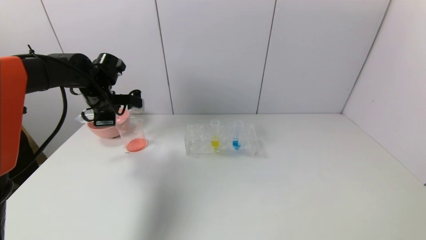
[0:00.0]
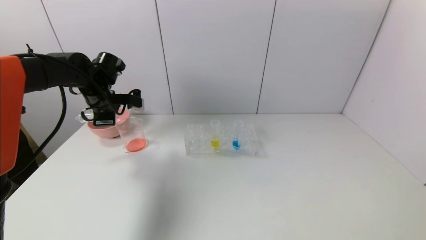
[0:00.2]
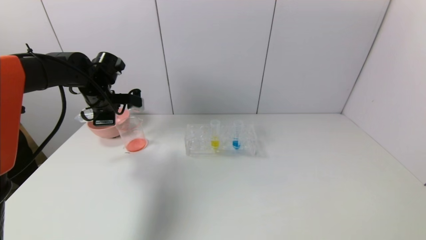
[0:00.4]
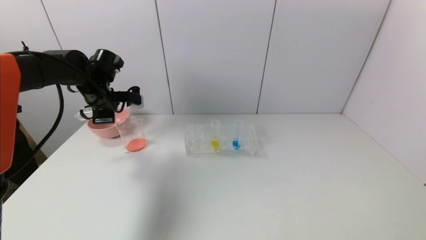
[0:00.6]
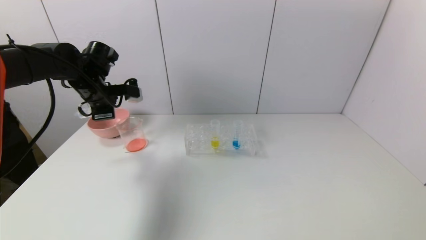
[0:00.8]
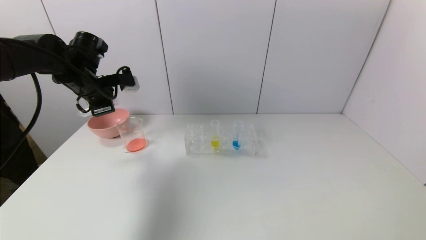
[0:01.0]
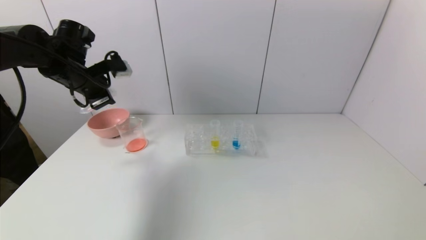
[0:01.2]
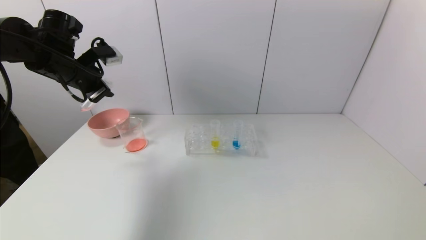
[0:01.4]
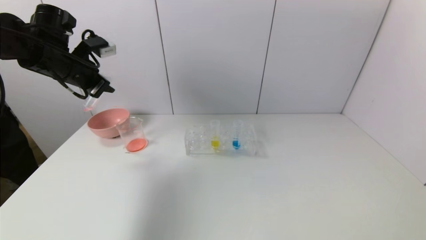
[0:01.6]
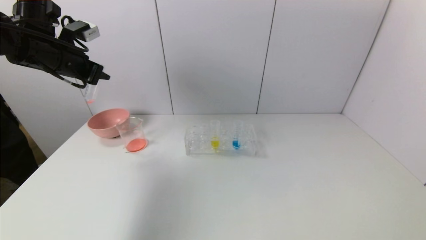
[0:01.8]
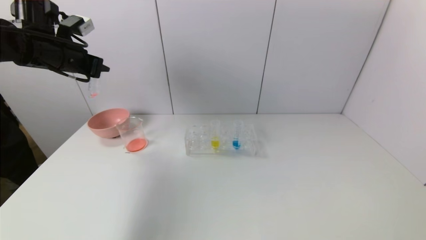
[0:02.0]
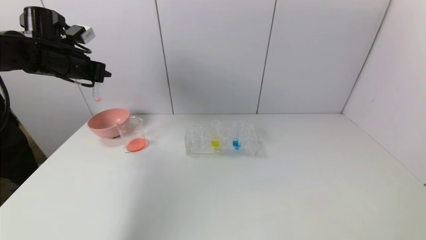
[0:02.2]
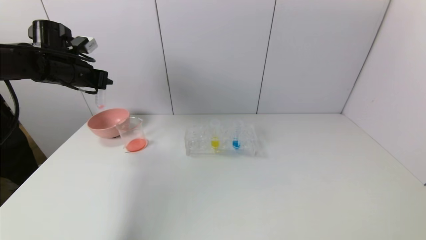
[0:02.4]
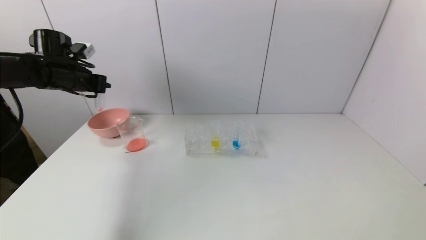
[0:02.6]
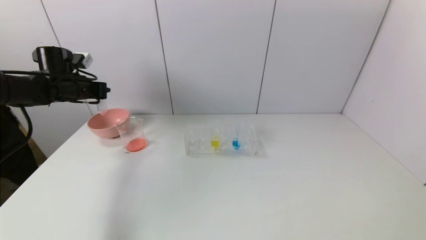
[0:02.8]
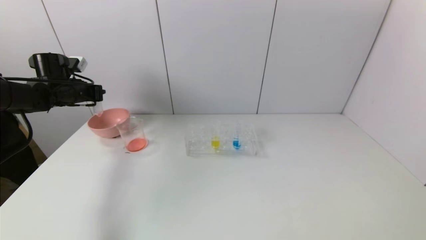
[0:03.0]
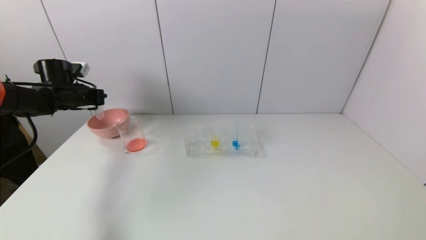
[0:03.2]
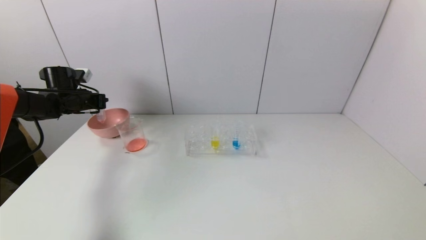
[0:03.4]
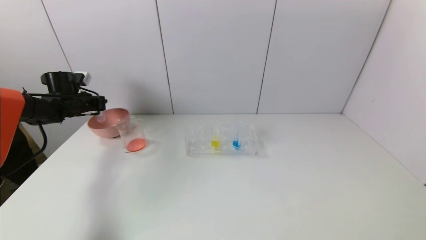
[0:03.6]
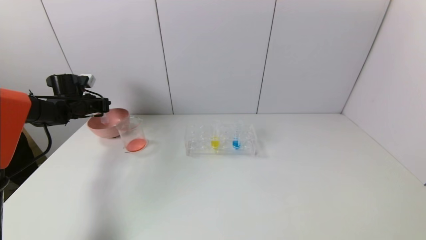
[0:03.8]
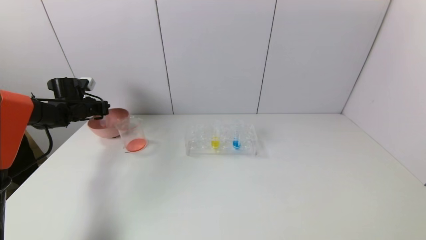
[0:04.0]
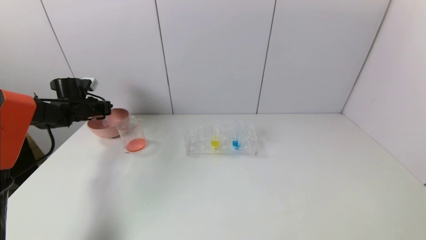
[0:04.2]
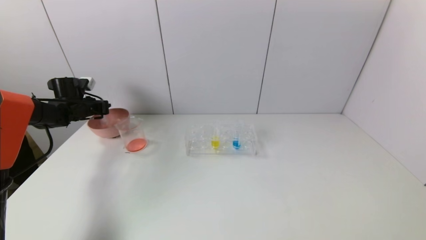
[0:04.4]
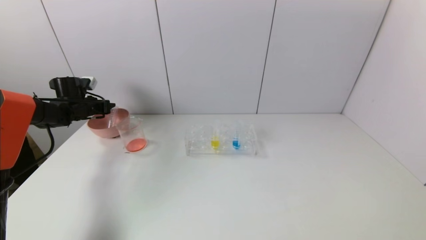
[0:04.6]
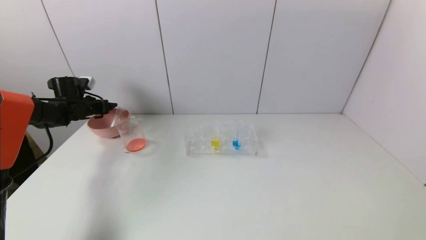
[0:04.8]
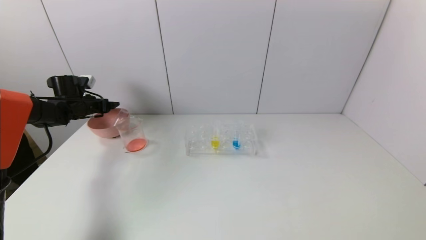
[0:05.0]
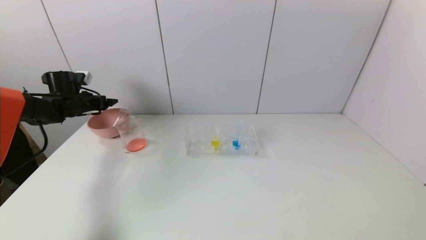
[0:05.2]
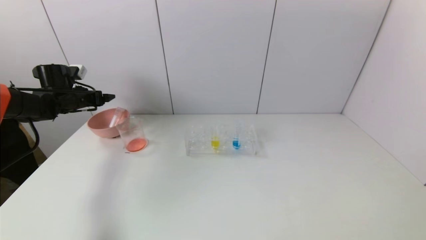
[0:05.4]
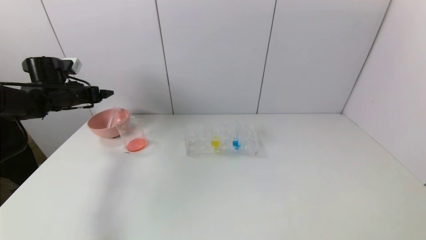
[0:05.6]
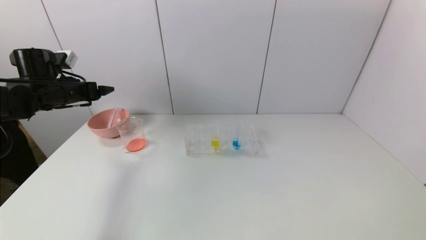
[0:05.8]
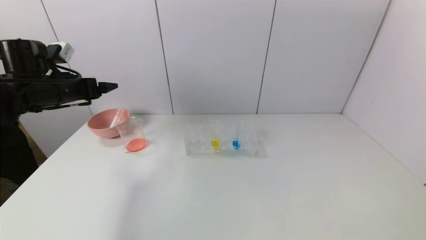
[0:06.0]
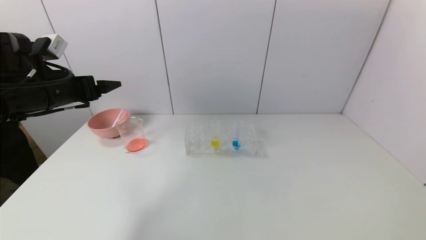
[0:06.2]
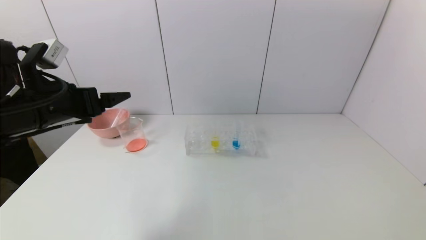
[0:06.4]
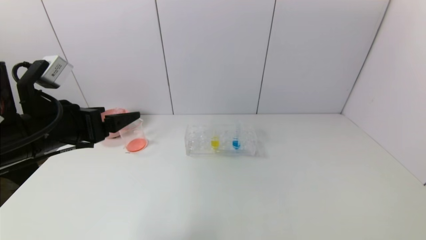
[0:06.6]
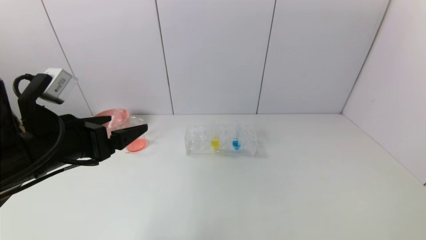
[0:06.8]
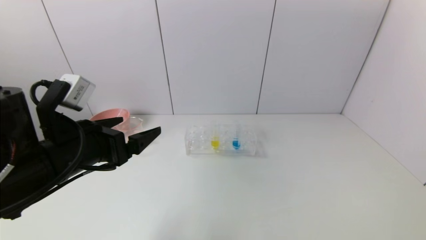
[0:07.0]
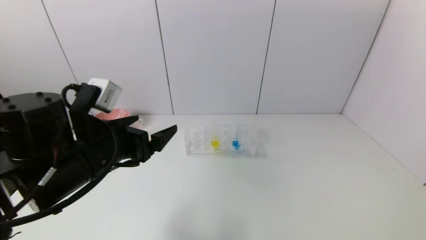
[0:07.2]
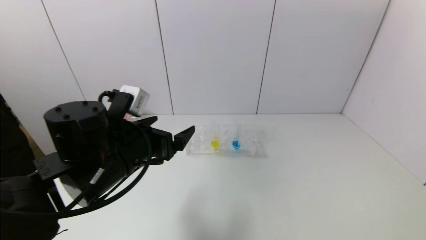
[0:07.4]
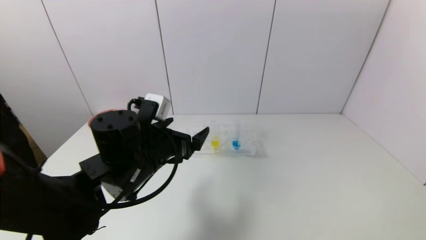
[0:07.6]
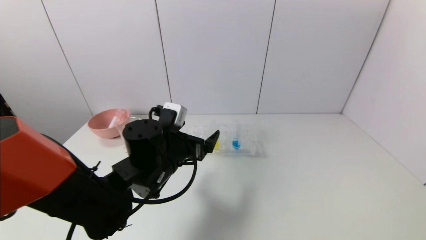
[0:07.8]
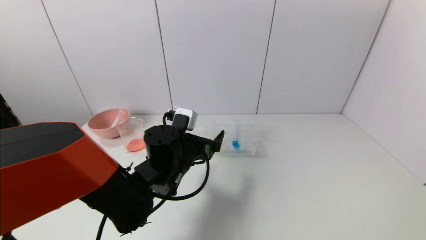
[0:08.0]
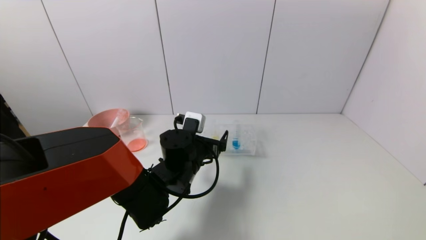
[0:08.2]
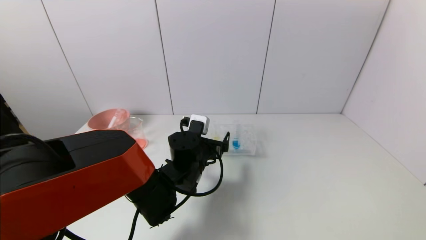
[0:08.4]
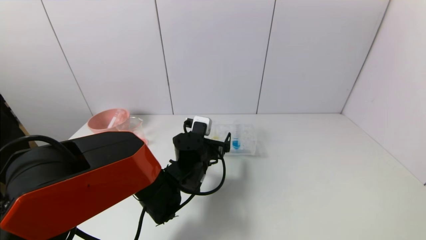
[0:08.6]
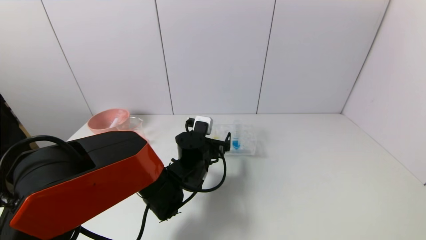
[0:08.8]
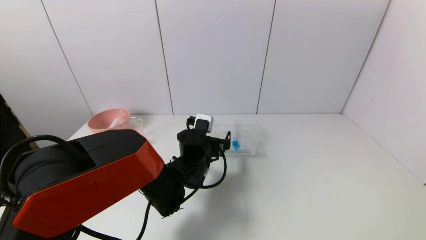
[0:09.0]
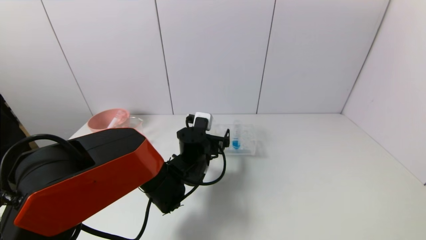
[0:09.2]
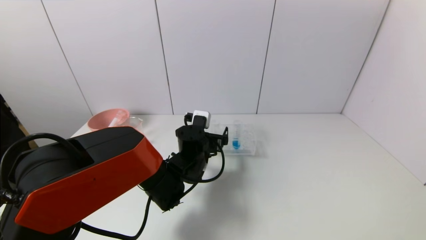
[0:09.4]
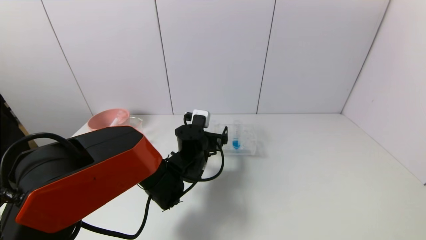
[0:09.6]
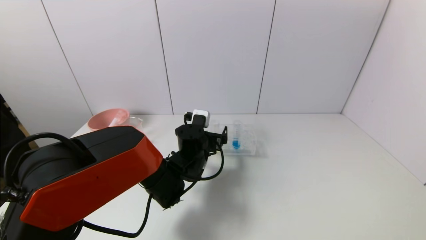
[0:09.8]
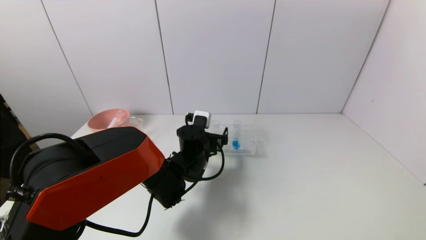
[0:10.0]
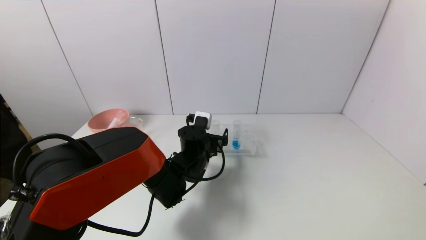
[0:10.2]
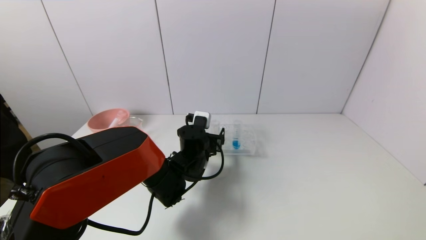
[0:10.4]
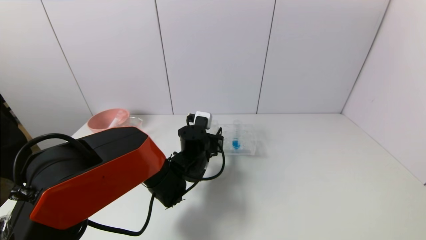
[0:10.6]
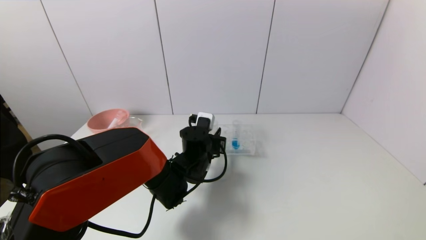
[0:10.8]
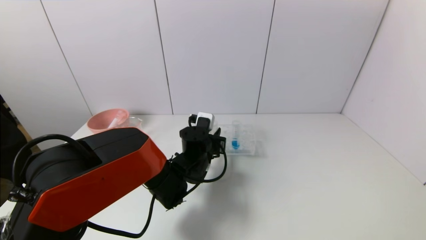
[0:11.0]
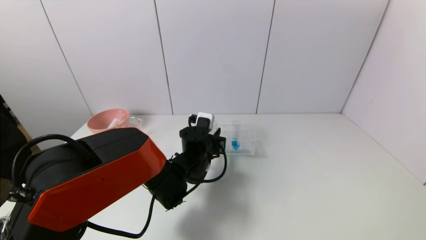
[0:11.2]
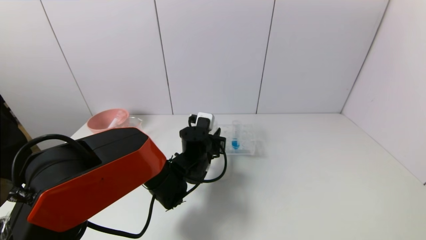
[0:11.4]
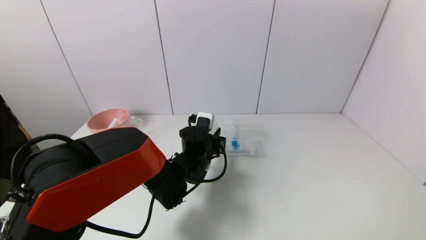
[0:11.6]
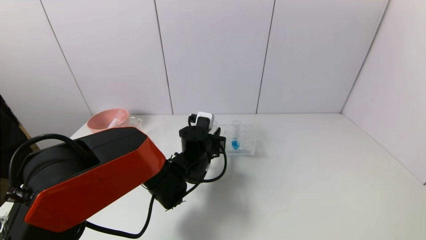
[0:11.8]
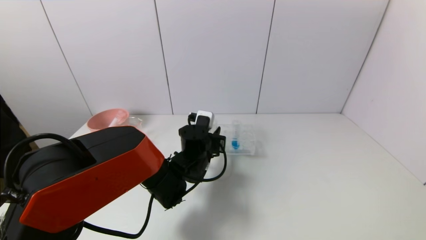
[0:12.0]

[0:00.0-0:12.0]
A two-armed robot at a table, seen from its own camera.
Task of the whole recording: pick up the test tube with yellow pigment and the test tube with red pigment by grippers and pour them into the beaker.
Step, 0:00.0 to 0:04.6: Place the test tube into the pink bowl with the left gripper.
Step, 0:04.8 to 0:11.2: Grasp the yellow reagent with the left gripper.
0:00.0 to 0:01.6: The left gripper moves upward, approximately 10 cm.
0:01.6 to 0:03.0: The left gripper is displaced downward, to the left and forward by about 15 cm.
0:03.0 to 0:04.4: The left gripper is displaced downward by about 5 cm.
0:04.4 to 0:06.0: The left gripper goes about 20 cm backward, upward and to the right, and opens its fingers.
0:06.0 to 0:07.6: The left gripper heads to the right and downward, covering roughly 25 cm.
0:07.6 to 0:09.0: The left gripper goes approximately 15 cm forward, to the right and downward.
0:09.0 to 0:10.4: There are only small adjustments of the grippers.
0:10.4 to 0:12.0: The left gripper closes its fingers.

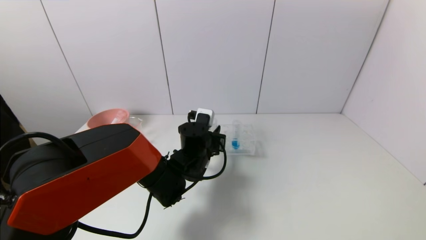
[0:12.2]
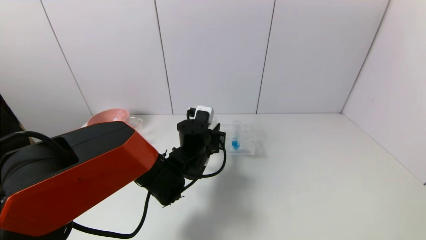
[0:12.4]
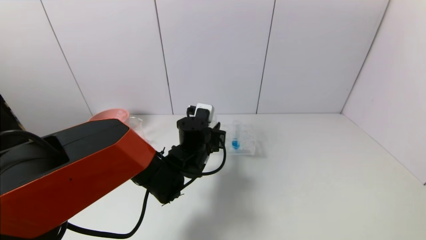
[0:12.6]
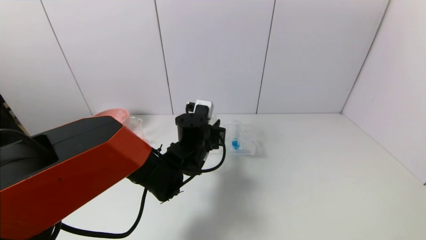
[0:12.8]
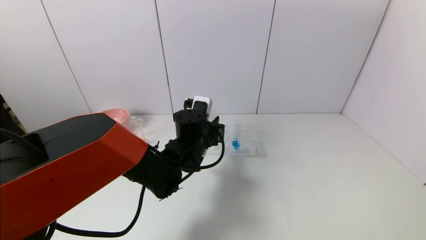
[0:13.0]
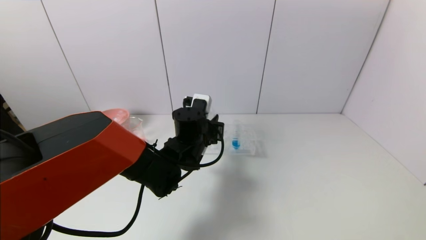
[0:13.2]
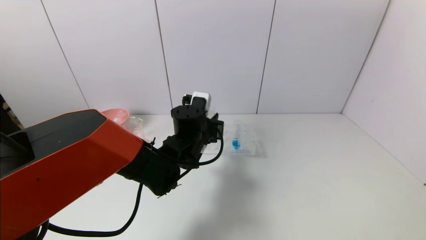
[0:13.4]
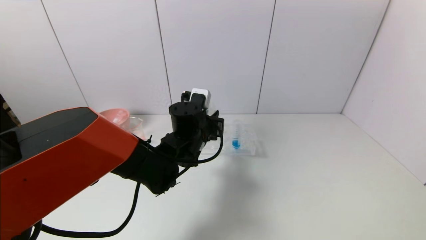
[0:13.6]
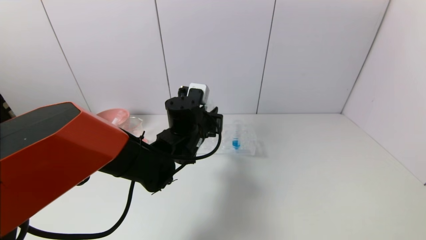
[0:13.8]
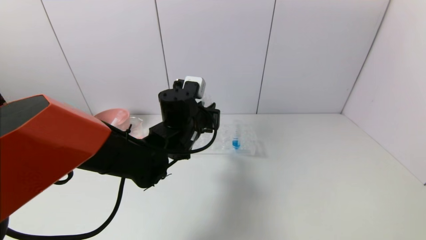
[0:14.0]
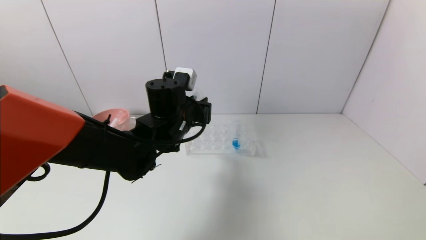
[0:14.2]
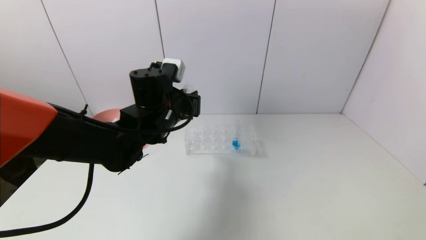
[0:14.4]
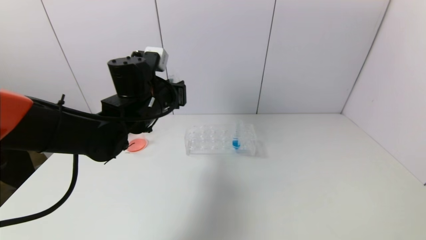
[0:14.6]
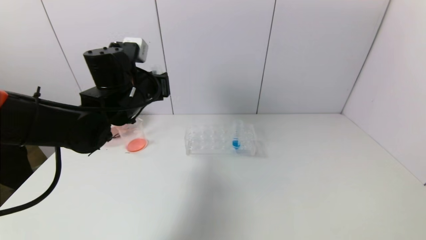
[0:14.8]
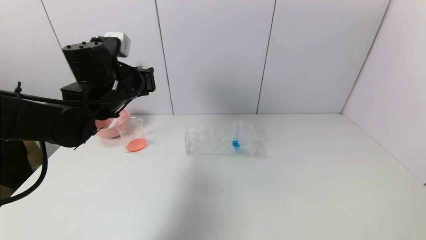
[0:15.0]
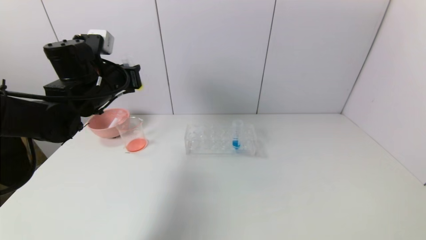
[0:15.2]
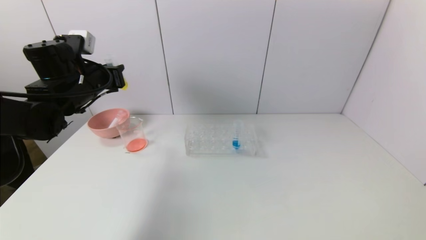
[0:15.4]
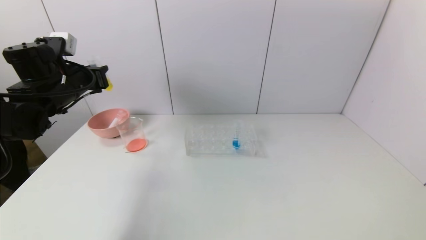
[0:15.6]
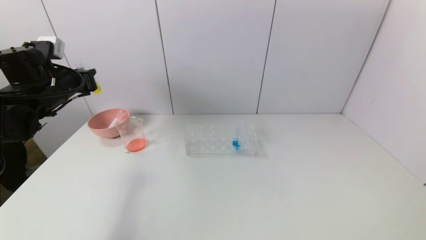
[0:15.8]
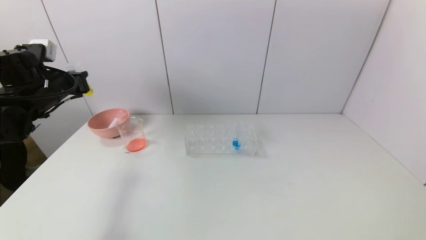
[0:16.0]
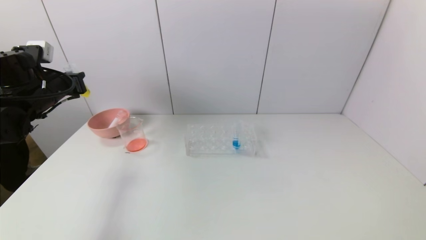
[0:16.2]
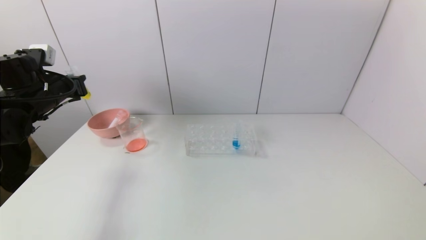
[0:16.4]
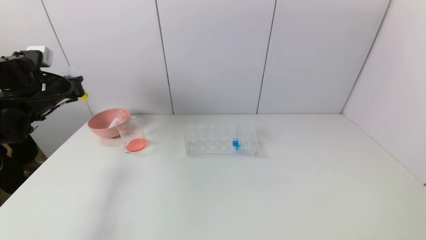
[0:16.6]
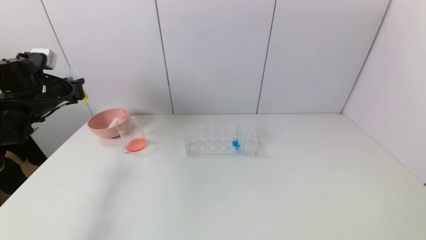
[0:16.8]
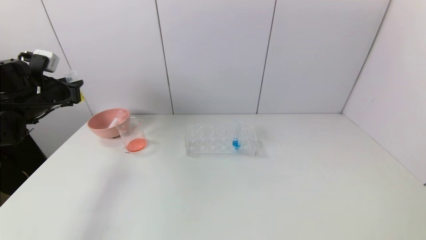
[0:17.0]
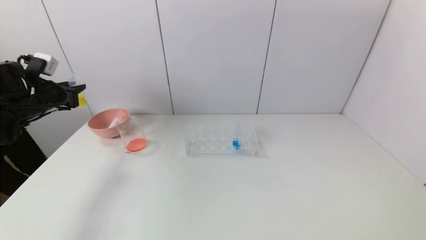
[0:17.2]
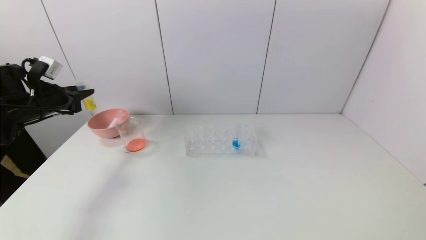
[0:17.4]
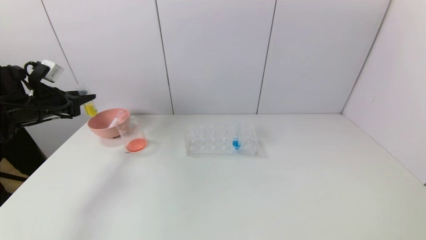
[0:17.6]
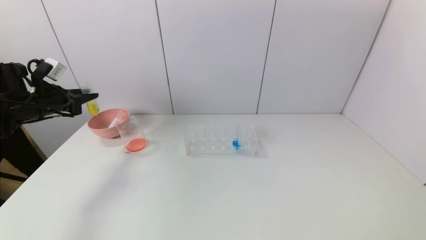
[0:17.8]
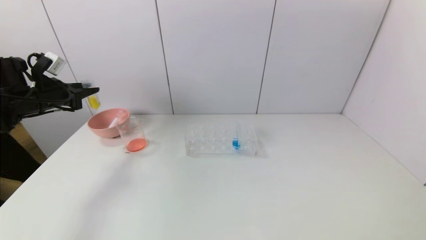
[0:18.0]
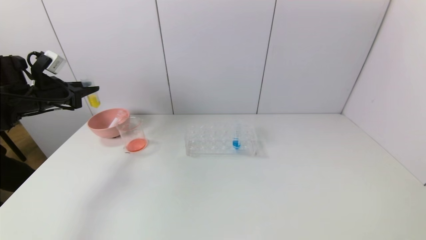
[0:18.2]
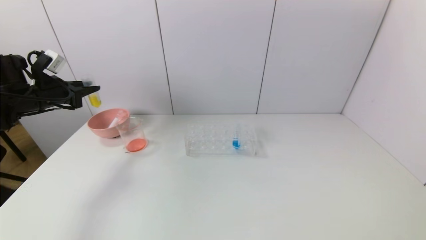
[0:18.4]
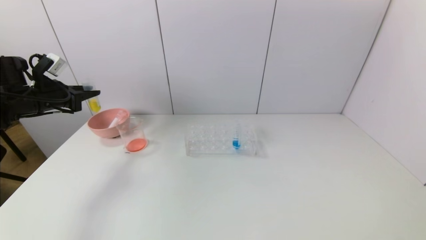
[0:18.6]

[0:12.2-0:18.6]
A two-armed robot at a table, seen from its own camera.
Task of the whole recording: pick up the test tube with yellow pigment and the test tube with red pigment by grippers and pour them into the beaker.
0:12.2 to 0:13.8: The left gripper goes approximately 5 cm upward.
0:13.8 to 0:15.4: The left gripper moves to the left, roughly 25 cm.
0:15.4 to 0:17.0: The left gripper heads to the left, covering about 10 cm.
